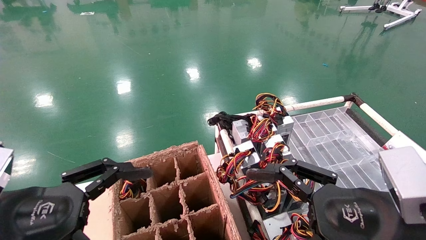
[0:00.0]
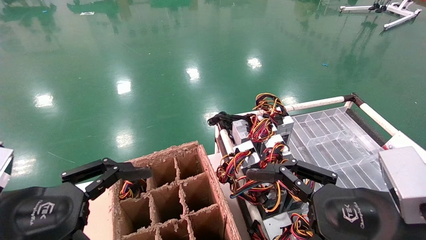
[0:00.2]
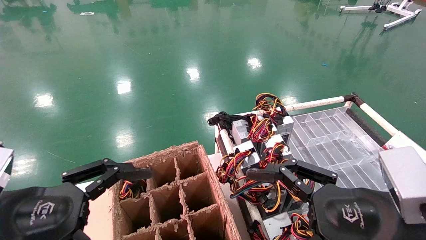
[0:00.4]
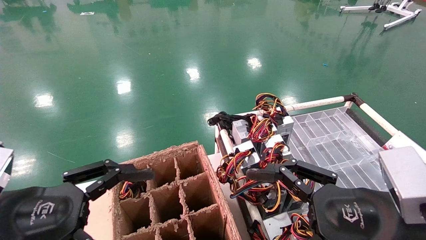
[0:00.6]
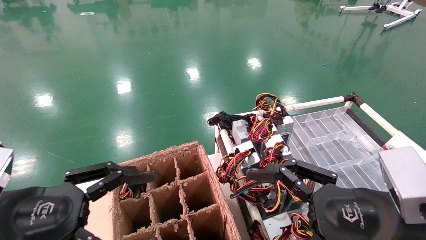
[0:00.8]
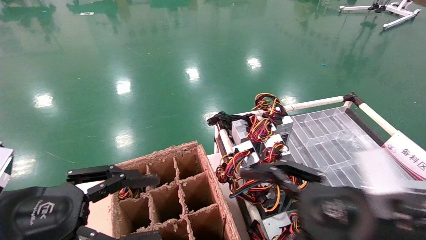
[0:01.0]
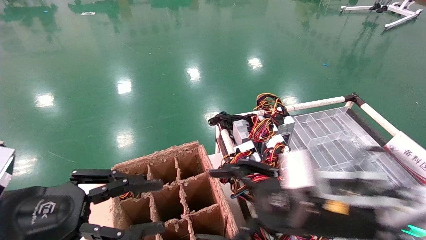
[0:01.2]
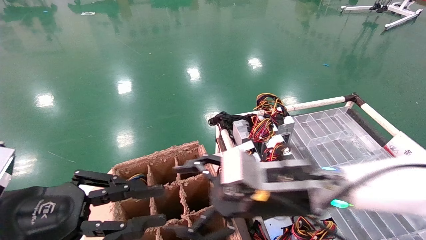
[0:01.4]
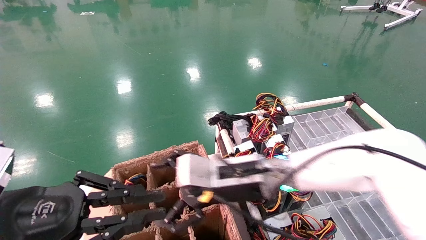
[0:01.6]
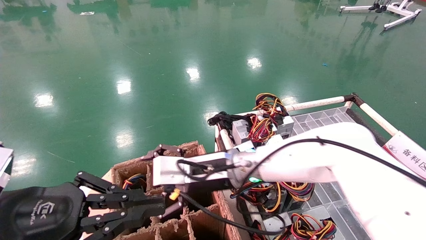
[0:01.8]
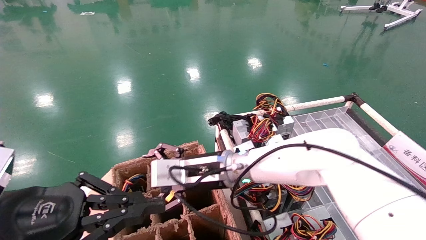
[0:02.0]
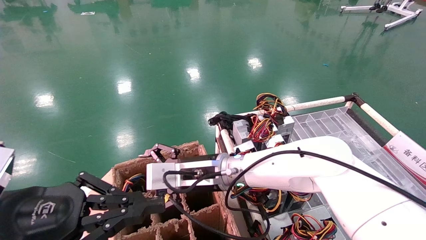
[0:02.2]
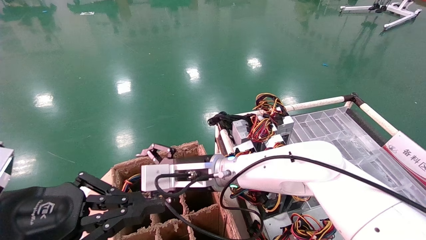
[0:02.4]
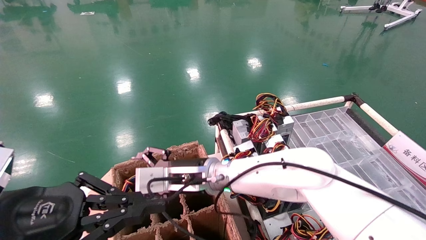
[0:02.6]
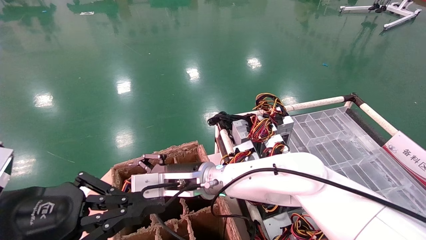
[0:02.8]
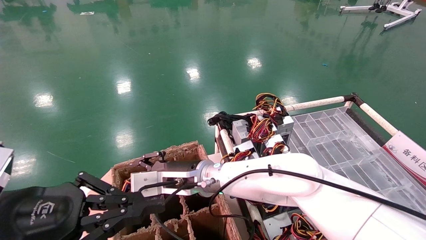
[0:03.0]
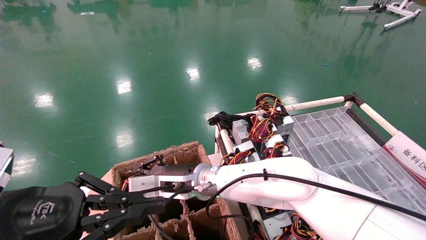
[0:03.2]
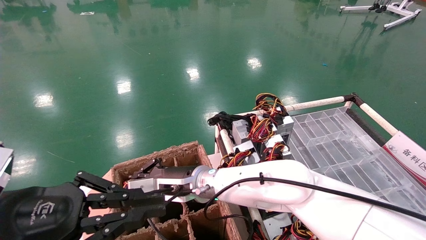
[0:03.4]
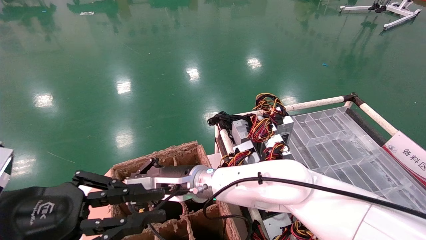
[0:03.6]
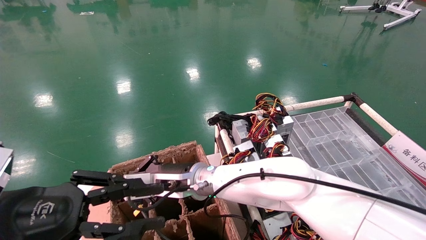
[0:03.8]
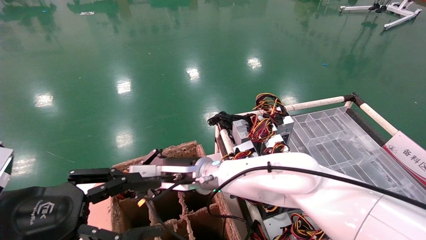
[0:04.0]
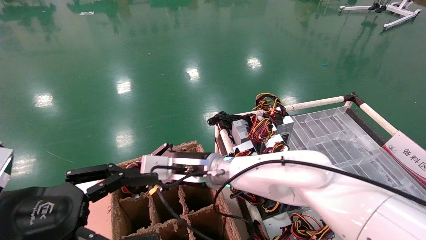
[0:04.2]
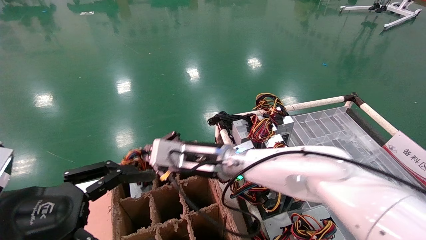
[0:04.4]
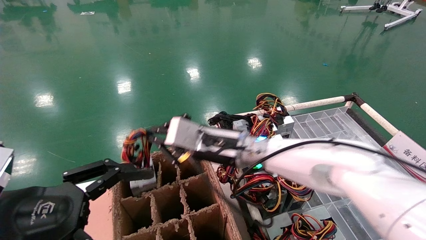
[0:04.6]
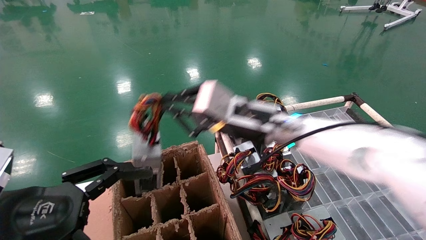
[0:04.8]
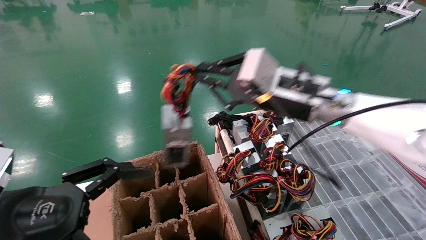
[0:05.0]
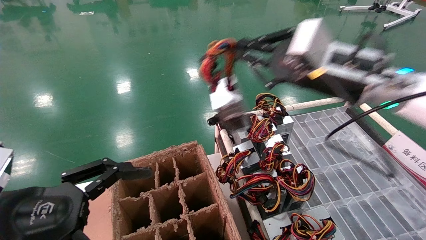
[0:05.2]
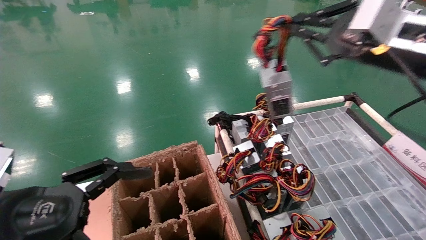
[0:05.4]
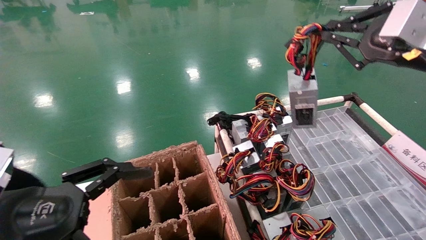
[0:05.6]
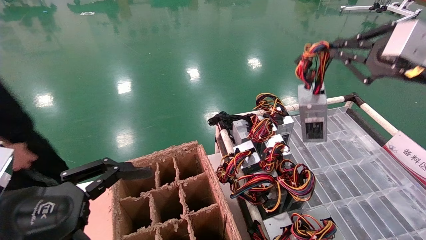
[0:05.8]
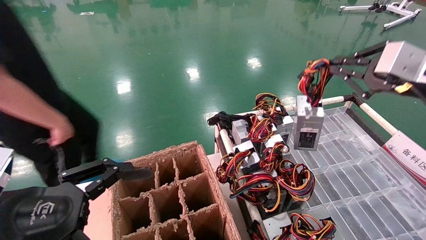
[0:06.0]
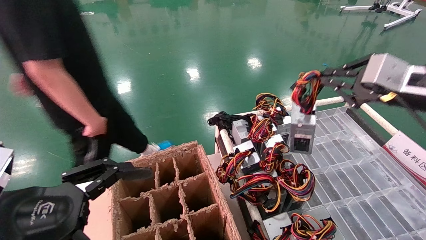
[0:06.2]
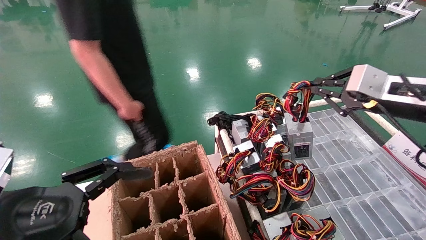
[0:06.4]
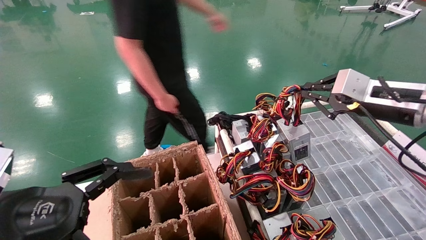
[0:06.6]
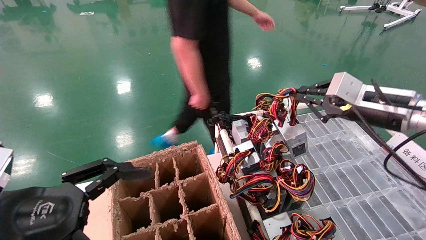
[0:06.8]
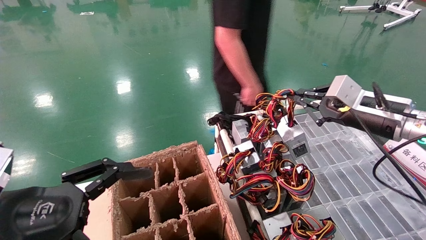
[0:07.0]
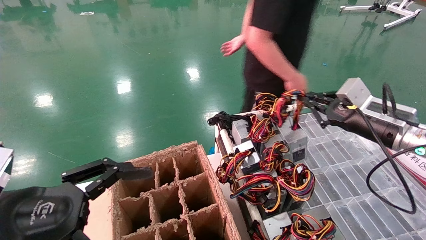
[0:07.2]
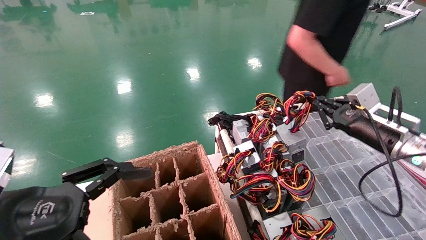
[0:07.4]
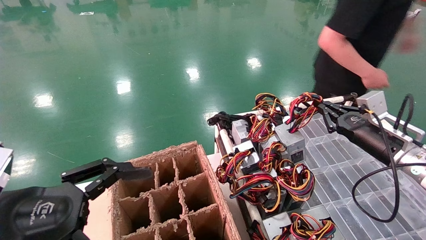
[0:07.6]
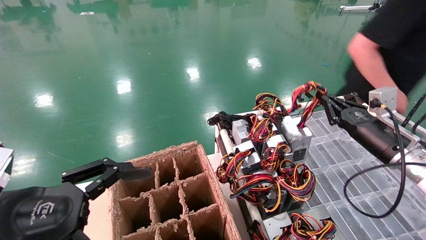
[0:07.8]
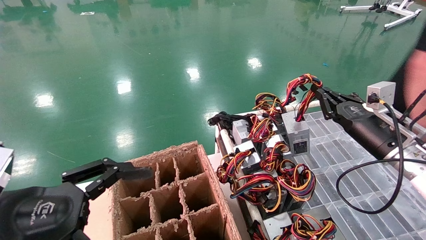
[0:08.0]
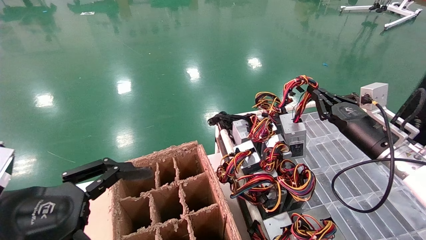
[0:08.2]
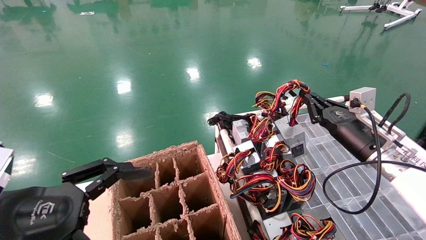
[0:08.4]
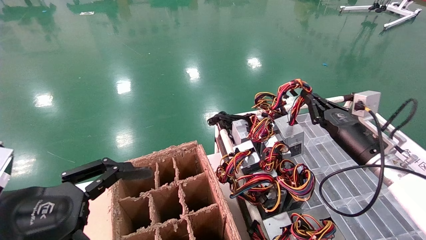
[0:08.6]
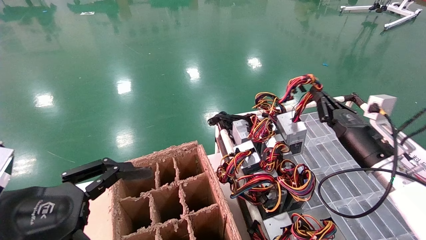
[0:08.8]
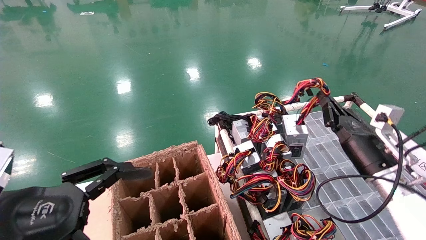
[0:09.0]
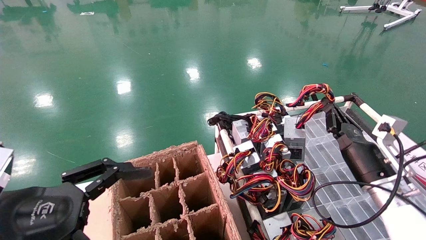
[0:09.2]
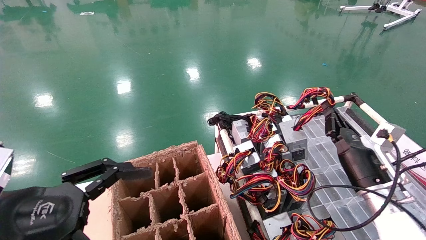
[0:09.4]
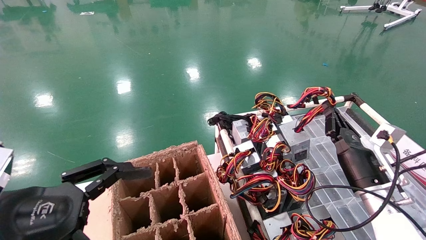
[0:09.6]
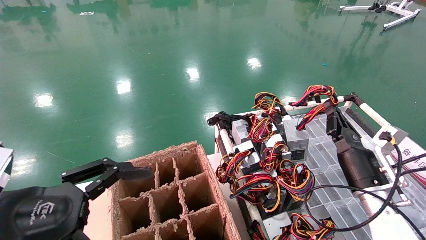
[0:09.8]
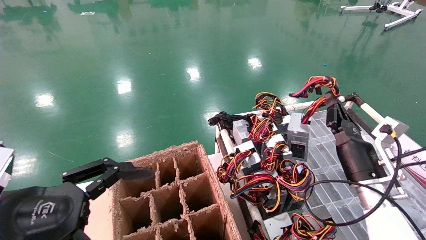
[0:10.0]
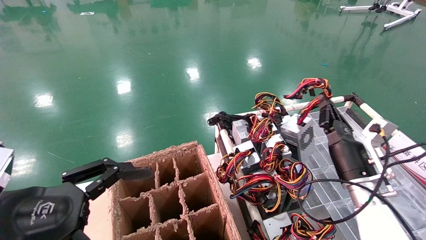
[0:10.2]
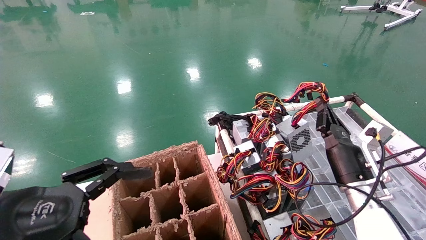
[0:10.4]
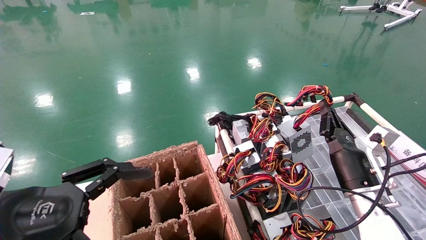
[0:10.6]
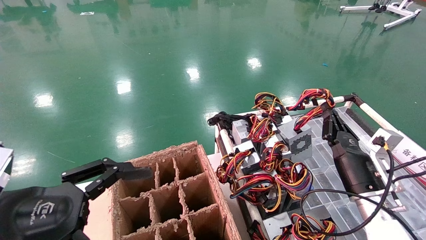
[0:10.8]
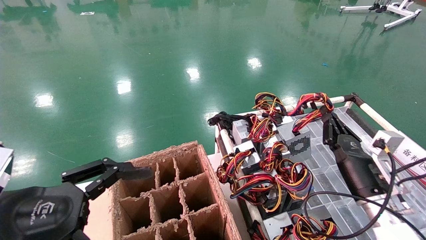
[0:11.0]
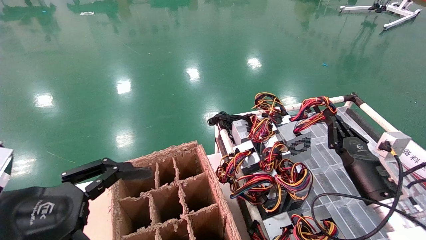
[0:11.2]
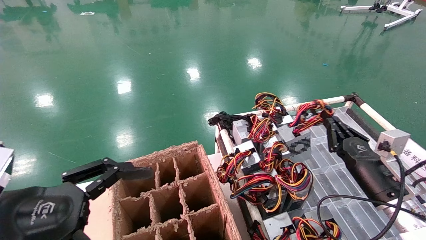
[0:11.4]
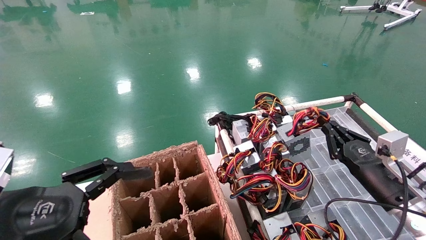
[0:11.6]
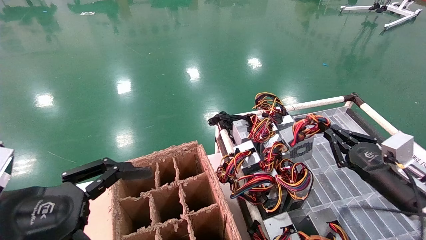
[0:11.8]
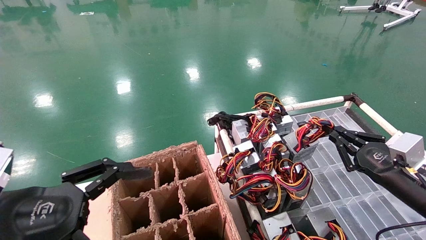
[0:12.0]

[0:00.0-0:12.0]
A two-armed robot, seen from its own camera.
Step, 0:01.0 to 0:03.8: Grab and lift the power supply from the large box.
0:00.0 to 0:01.6: The right gripper travels to the left and forward by approximately 25 cm; the left gripper closes up.
0:01.6 to 0:03.0: The right gripper is displaced to the left and forward by roughly 10 cm, and closes.
0:03.0 to 0:04.4: The left gripper opens up; the right gripper shifts by about 5 cm, and closes up.
0:04.4 to 0:06.0: The right gripper moves to the right and upward, approximately 40 cm.
0:06.0 to 0:07.6: The right gripper travels downward and forward by approximately 15 cm.
0:07.6 to 0:09.0: The right gripper is displaced downward by approximately 5 cm.
0:09.0 to 0:10.4: The right gripper shifts by roughly 5 cm.
0:10.4 to 0:12.0: The right gripper goes some 10 cm to the right and backward.

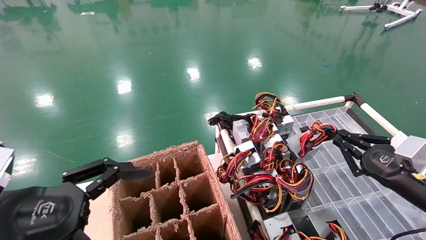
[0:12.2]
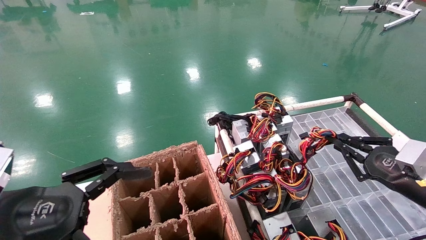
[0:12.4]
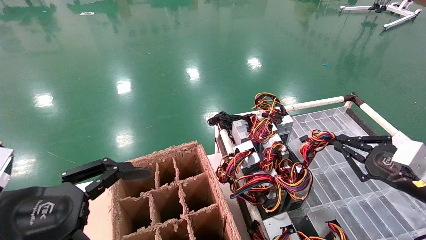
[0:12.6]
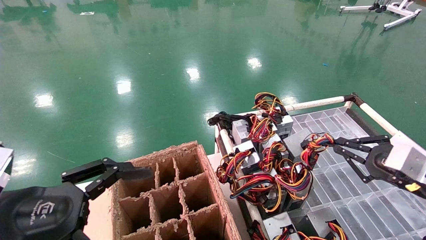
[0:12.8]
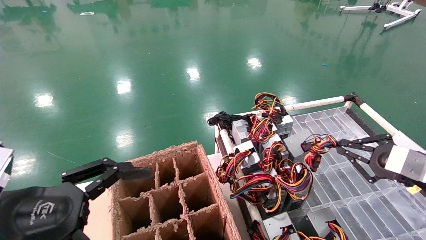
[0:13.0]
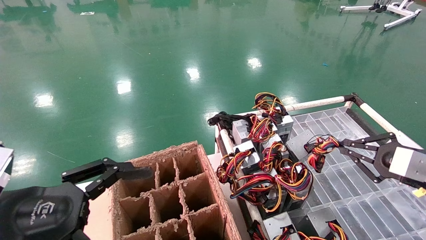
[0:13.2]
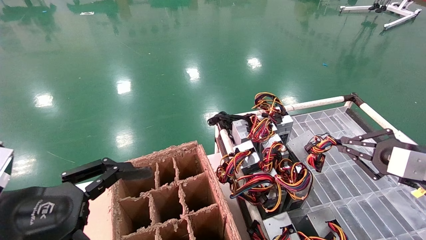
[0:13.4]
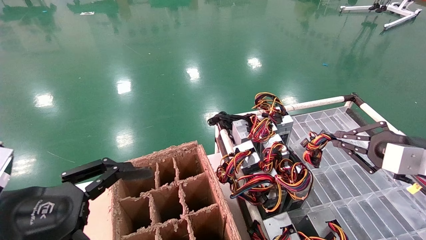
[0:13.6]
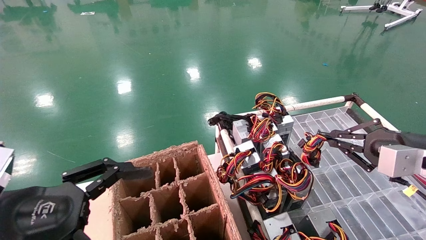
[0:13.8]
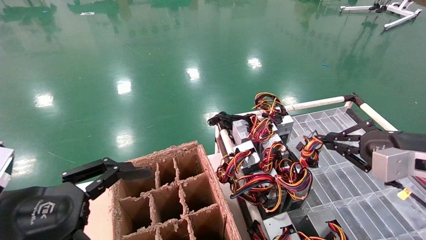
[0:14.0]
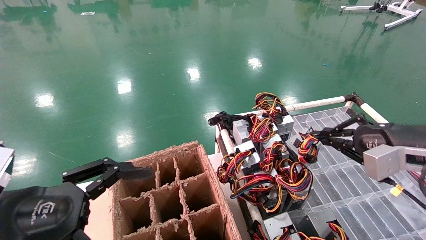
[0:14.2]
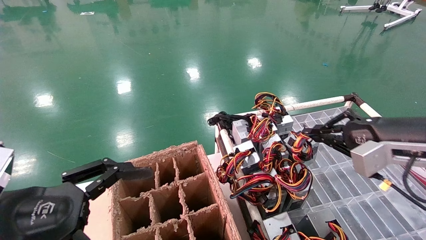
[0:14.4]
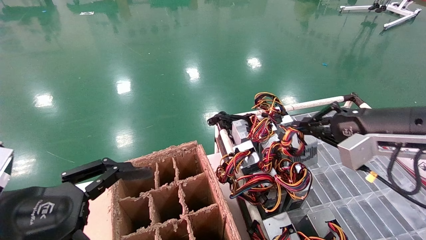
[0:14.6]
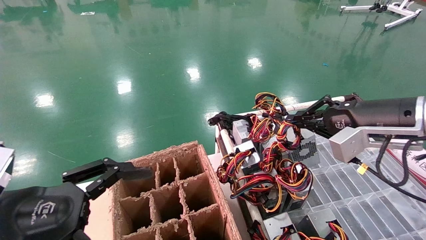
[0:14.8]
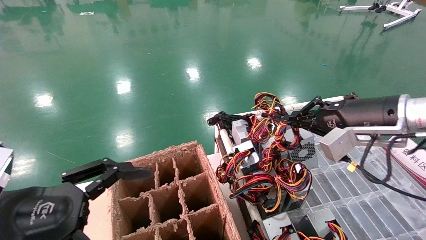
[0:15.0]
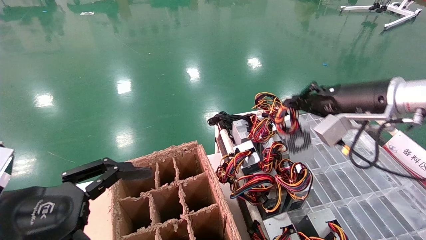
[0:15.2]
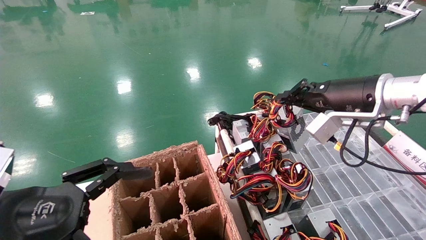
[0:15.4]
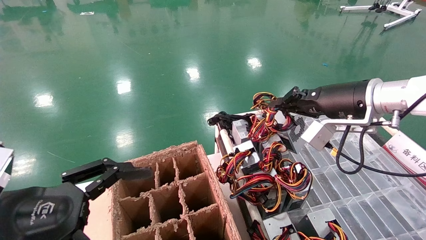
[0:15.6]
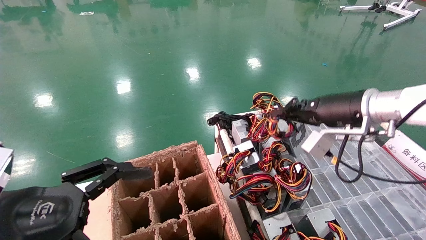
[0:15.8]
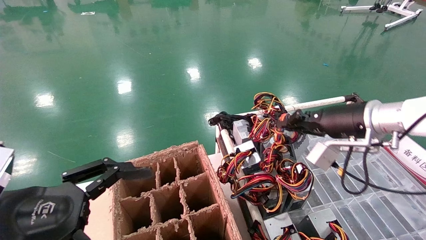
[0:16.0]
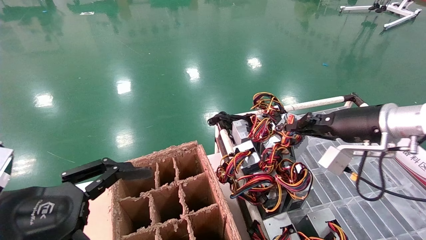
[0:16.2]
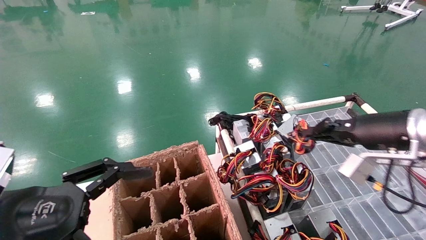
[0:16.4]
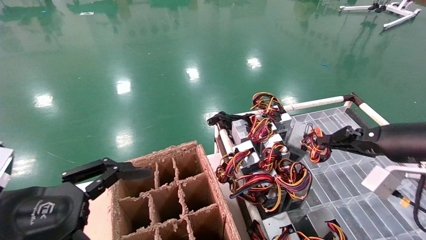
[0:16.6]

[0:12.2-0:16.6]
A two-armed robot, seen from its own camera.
0:12.2 to 0:13.6: The right gripper heads upward, covering about 10 cm.
0:13.6 to 0:15.2: The right gripper goes approximately 15 cm to the left, upward and forward.
0:15.2 to 0:16.6: The right gripper is displaced downward, backward and to the right by approximately 10 cm.
